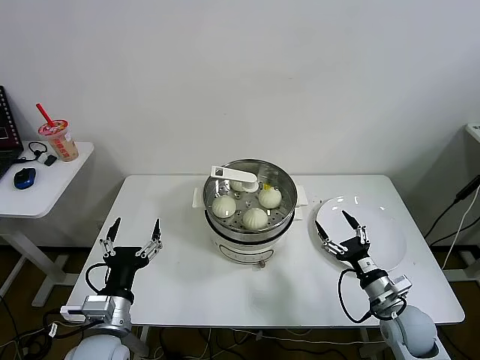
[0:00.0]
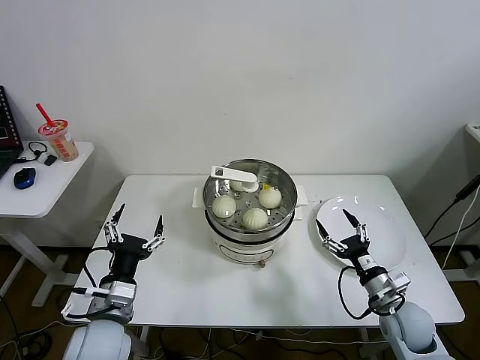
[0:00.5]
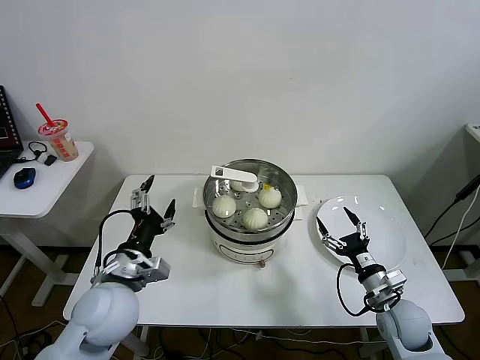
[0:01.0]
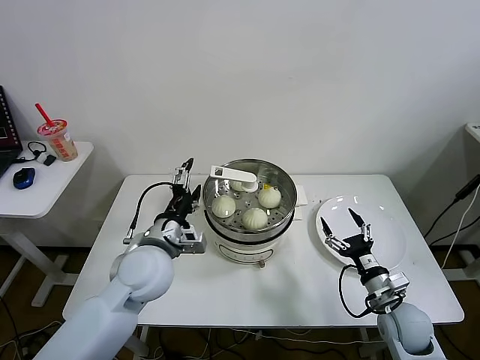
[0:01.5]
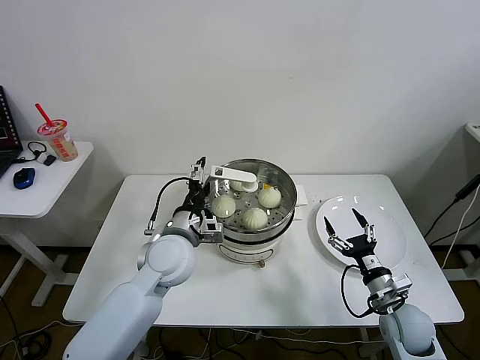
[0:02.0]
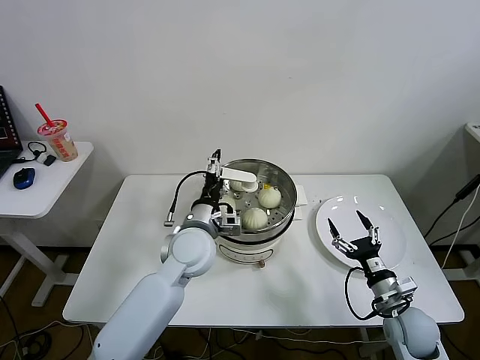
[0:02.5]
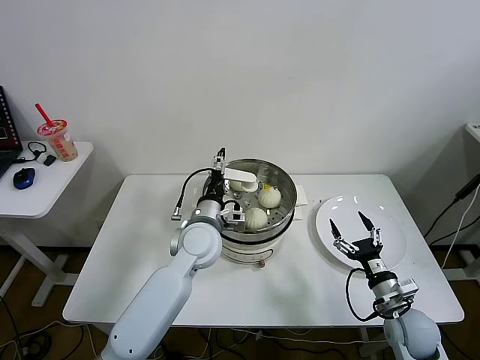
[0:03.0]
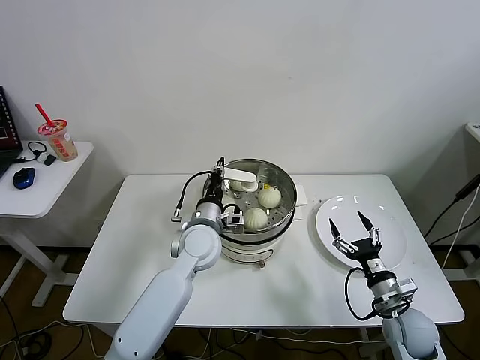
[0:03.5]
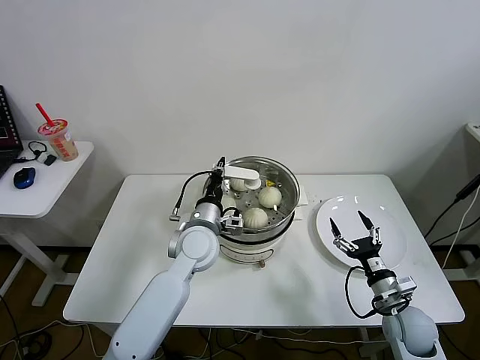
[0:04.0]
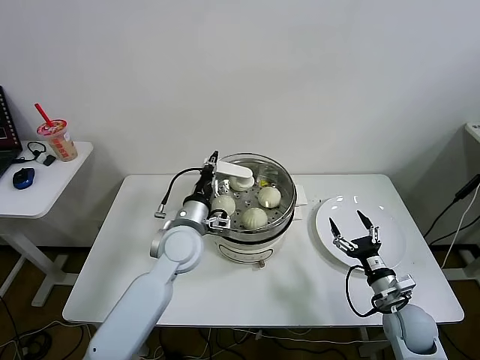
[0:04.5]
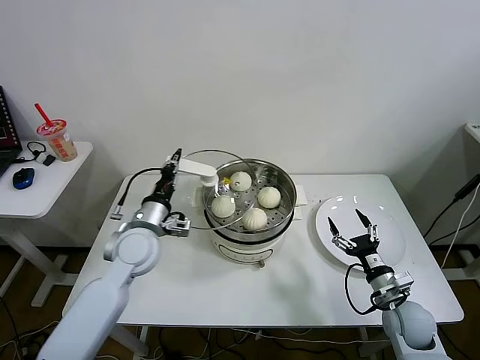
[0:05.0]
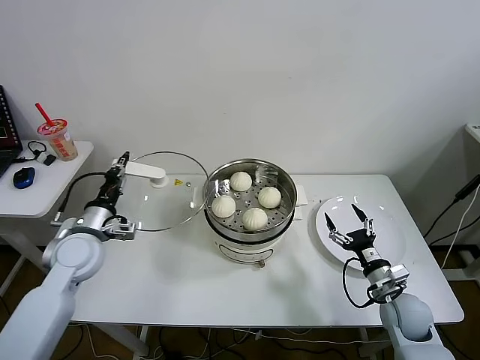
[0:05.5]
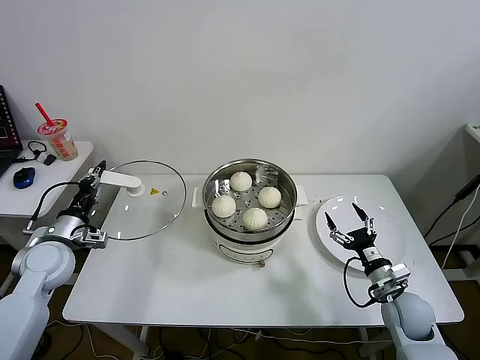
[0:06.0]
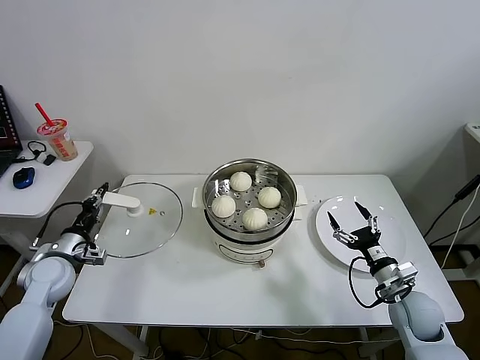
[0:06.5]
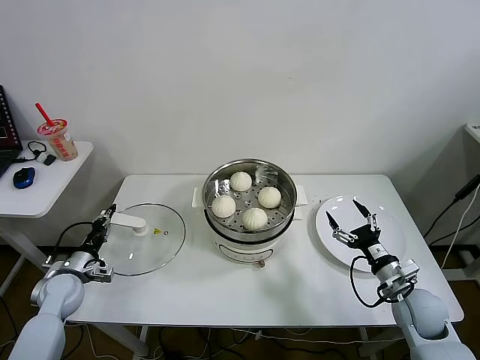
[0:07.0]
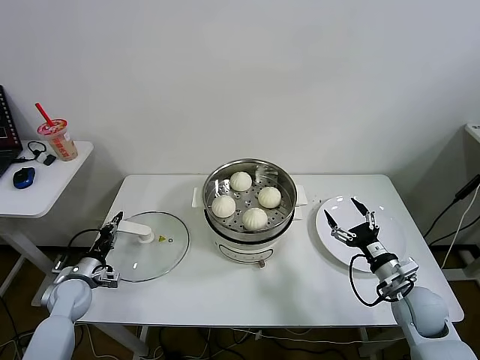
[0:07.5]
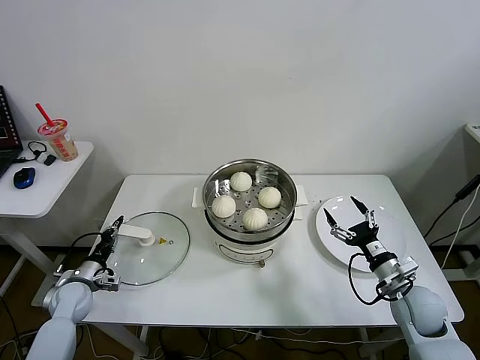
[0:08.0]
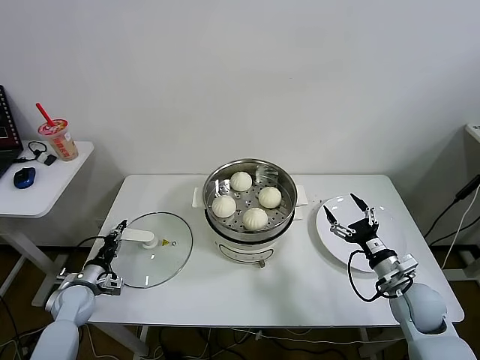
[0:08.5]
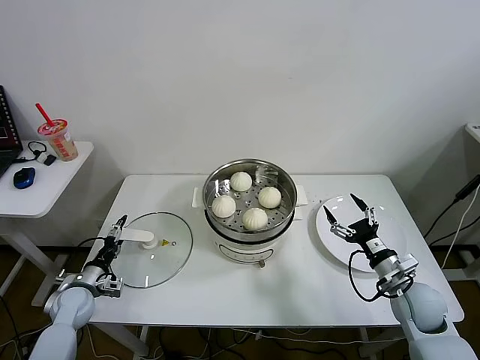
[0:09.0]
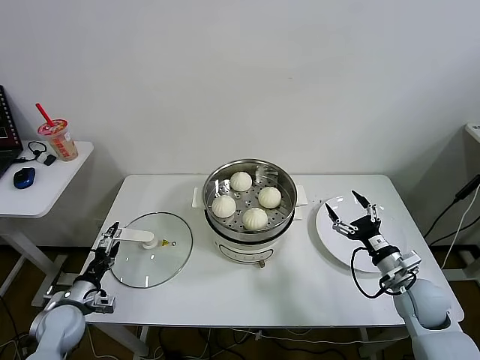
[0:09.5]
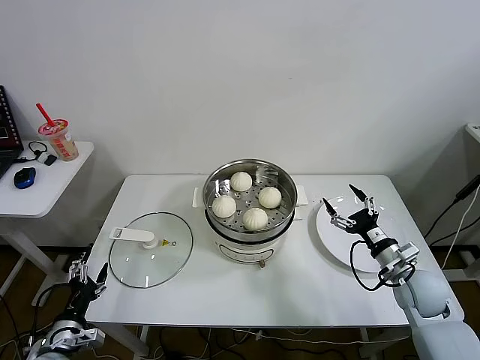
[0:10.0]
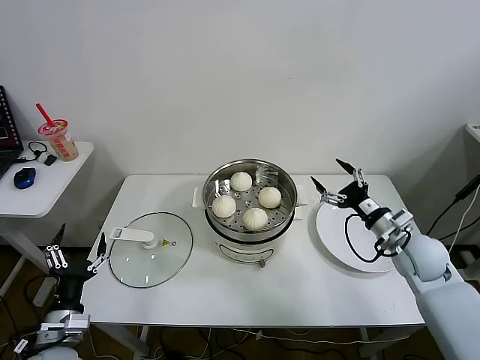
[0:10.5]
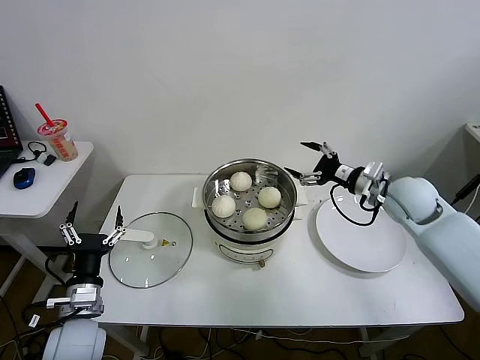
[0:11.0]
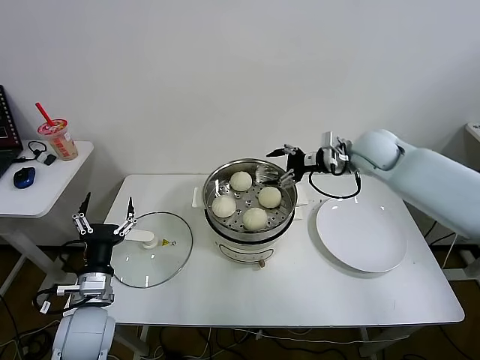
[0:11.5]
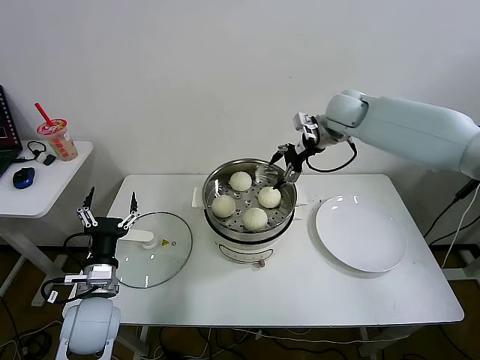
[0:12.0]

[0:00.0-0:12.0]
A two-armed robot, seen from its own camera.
Task of the whole recording: take steamed baozi put them in steamer then cover it.
Step, 0.0 to 4.0 s: Grasp the pot lid with left gripper.
Step, 4.5 to 8.5 s: Place the pot lid on the table with left gripper.
2.0 to 4.0 s: The left gripper ends up some 5 cm from where it was, and closes its fingers.
4.0 to 6.0 s: The left gripper goes roughly 30 cm to the left.
6.0 to 8.0 s: The left gripper heads downward, covering roughly 15 cm.
8.0 to 10.0 s: The left gripper moves backward, about 15 cm, and opens.
10.0 to 12.0 s: The left gripper shifts roughly 15 cm to the right, upward and forward; the right gripper heads forward, upward and to the left, covering about 40 cm.

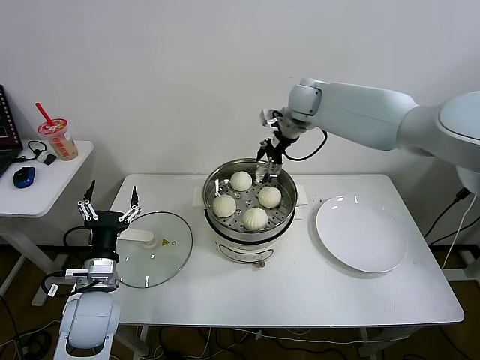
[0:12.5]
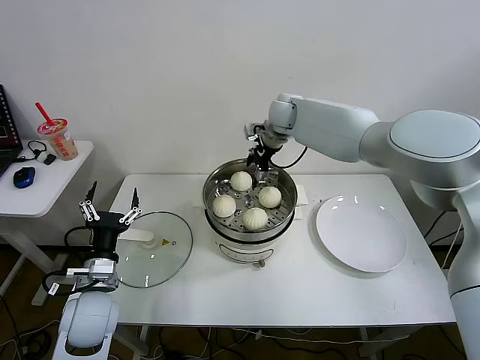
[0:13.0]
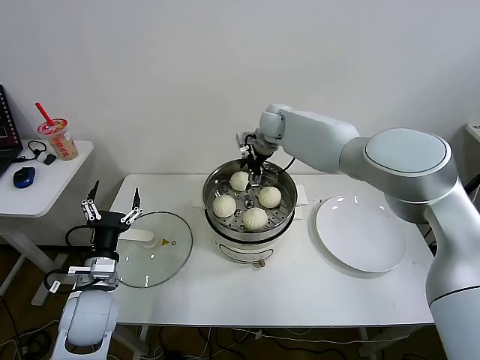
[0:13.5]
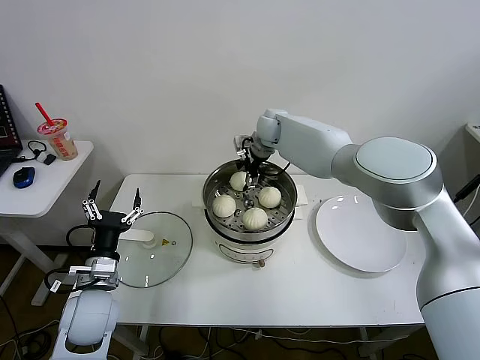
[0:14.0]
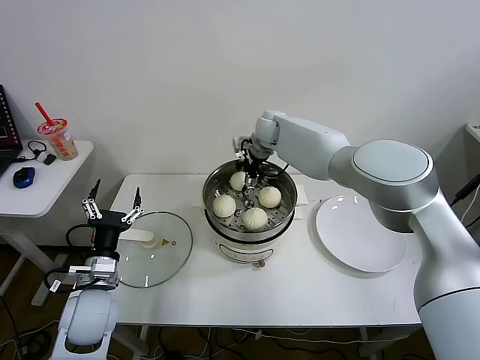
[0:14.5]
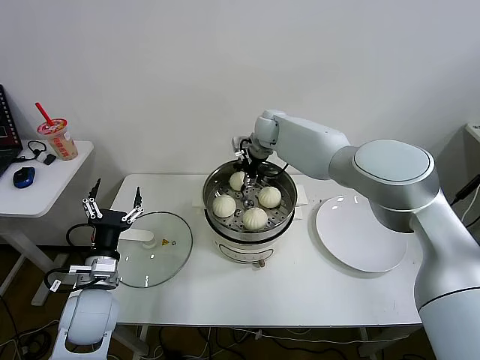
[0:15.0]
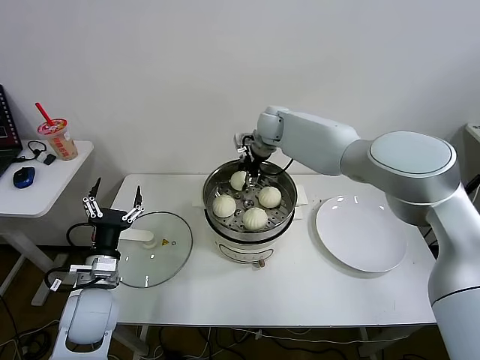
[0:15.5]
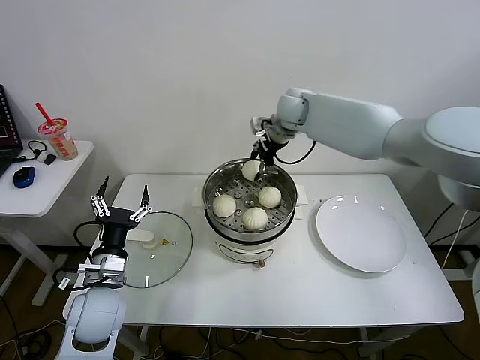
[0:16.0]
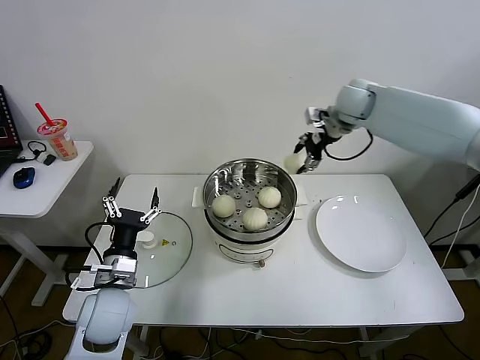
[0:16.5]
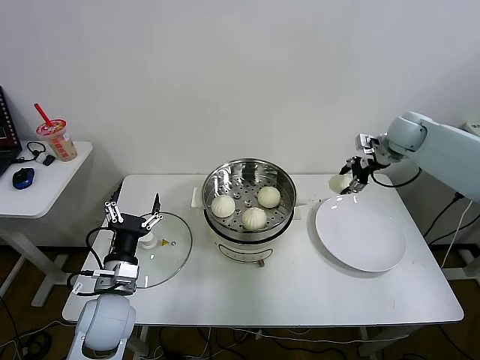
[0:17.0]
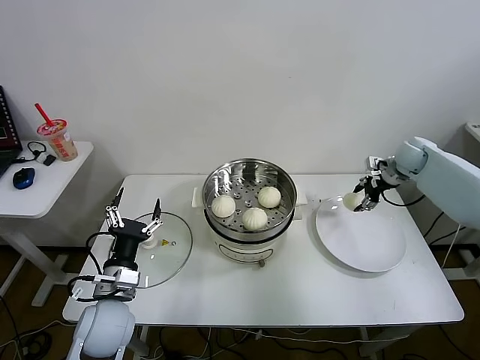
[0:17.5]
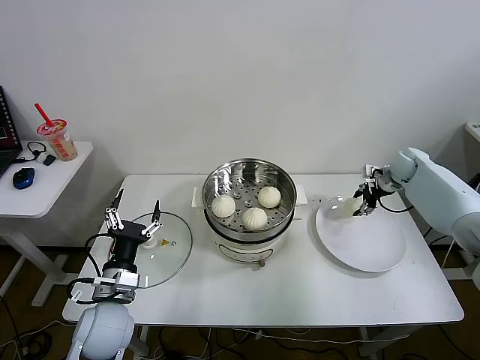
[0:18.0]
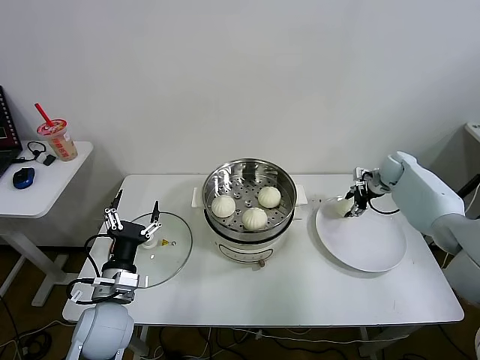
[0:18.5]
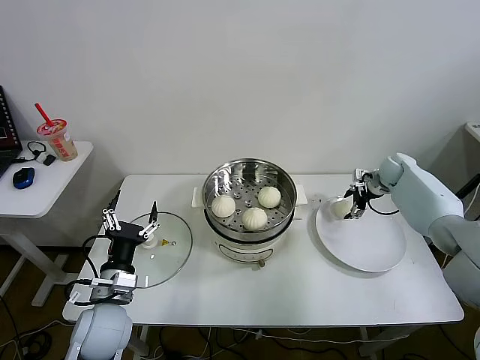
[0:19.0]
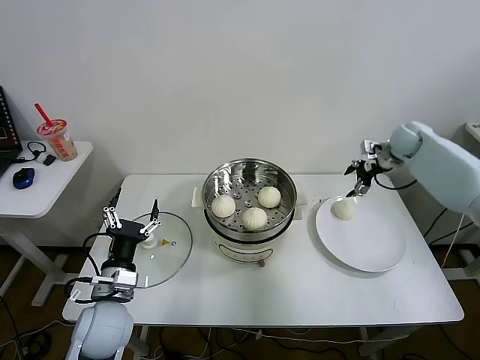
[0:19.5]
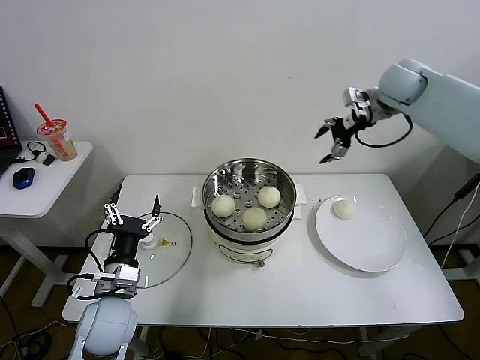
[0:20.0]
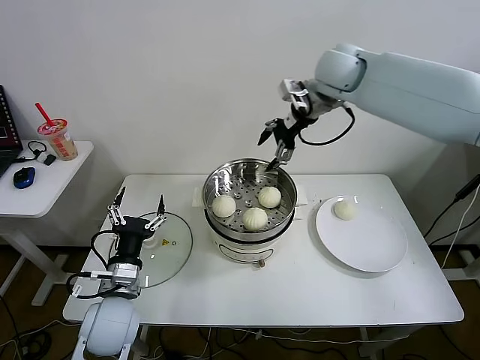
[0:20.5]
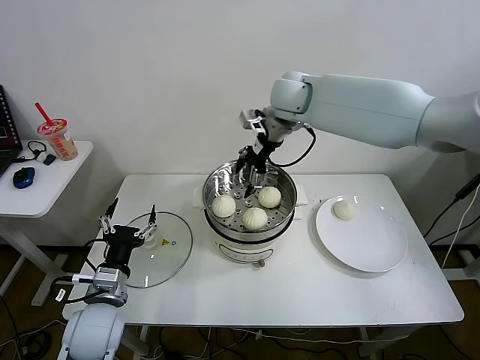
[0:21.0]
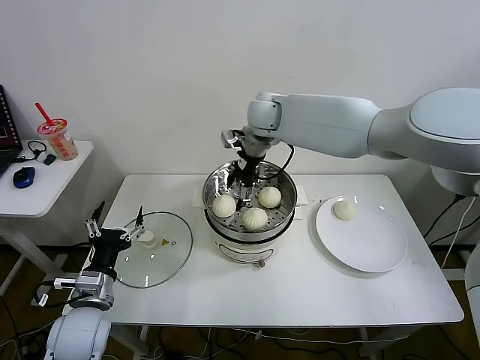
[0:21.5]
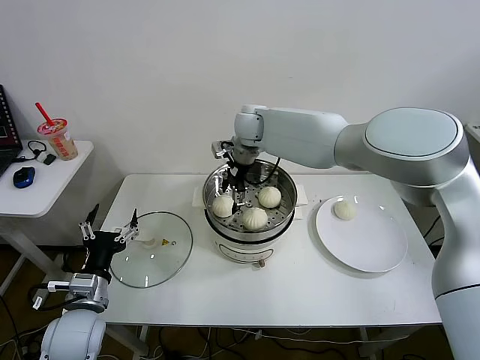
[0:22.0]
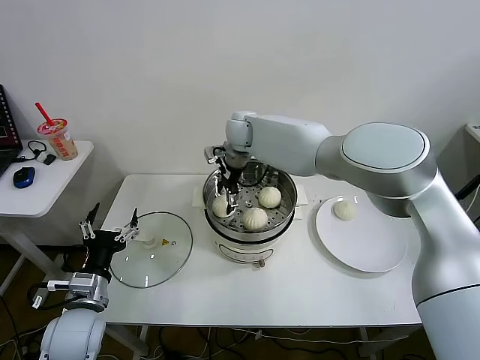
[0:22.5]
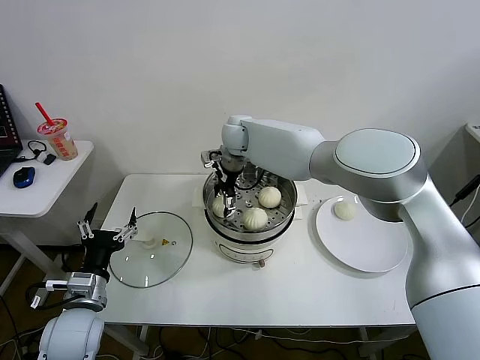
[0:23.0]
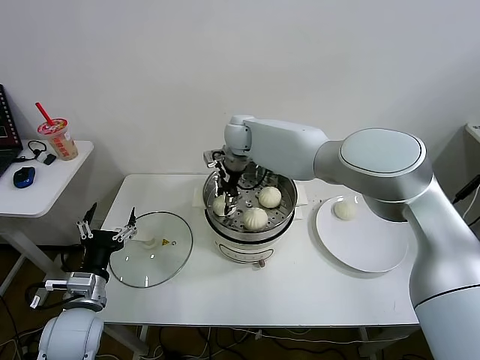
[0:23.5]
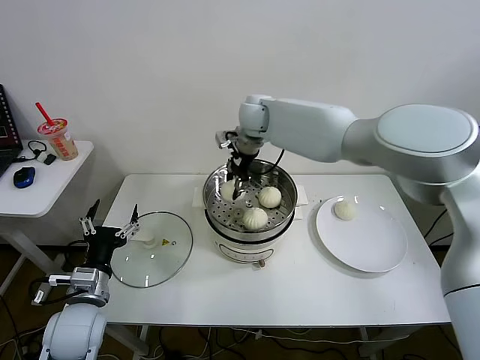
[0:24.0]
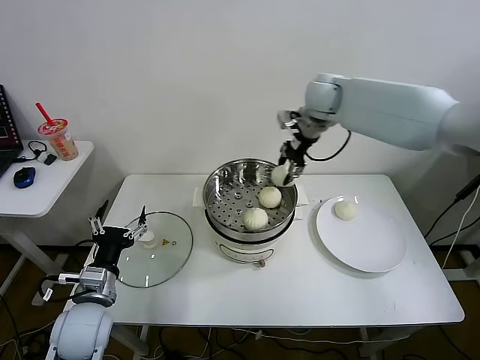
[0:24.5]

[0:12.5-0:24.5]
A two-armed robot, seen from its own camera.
Task of the whole recording: take steamed baozi put them in steamer then cover it.
Step, 12.5 to 14.5 s: Grasp the baozi with right gripper.
Step, 15.0 to 18.5 s: Place the baozi on the plate with right gripper.
Step, 19.0 to 23.0 s: Grasp the baozi with right gripper.
12.5 to 14.5 s: The right gripper moves downward and to the left, about 10 cm.
14.5 to 16.5 s: The right gripper goes approximately 20 cm to the right and upward, and closes up.
16.5 to 18.5 s: The right gripper travels downward and to the right by approximately 25 cm.
18.5 to 20.5 s: The right gripper goes about 40 cm upward and to the left, and opens up.
20.5 to 22.5 s: The left gripper moves to the left, about 5 cm. Meanwhile the right gripper goes about 25 cm to the left and downward.
22.5 to 24.5 s: The right gripper moves to the right and upward, some 20 cm, and closes.

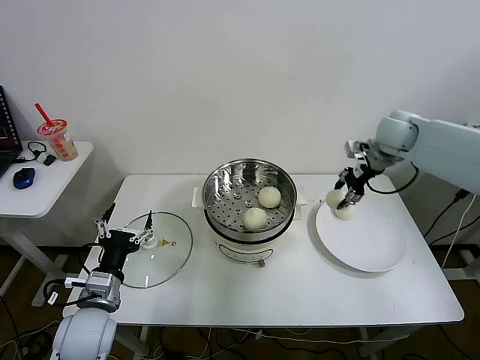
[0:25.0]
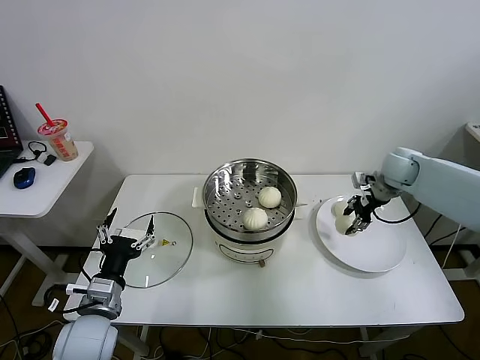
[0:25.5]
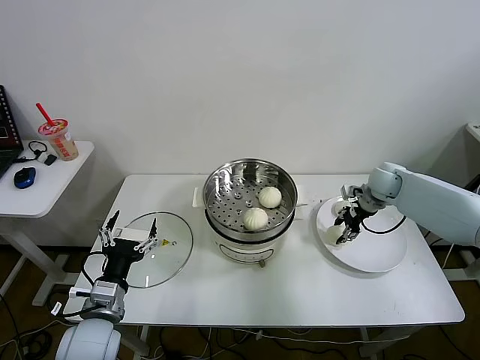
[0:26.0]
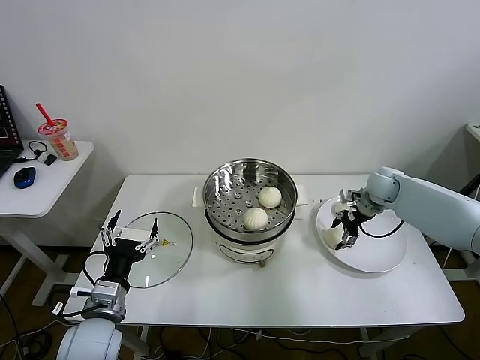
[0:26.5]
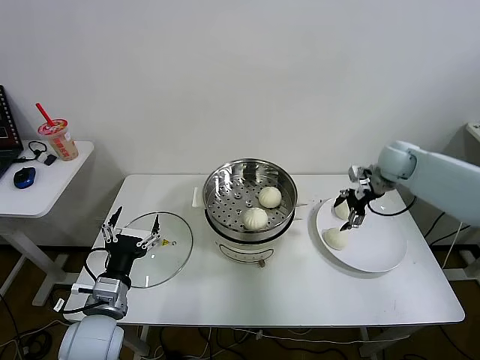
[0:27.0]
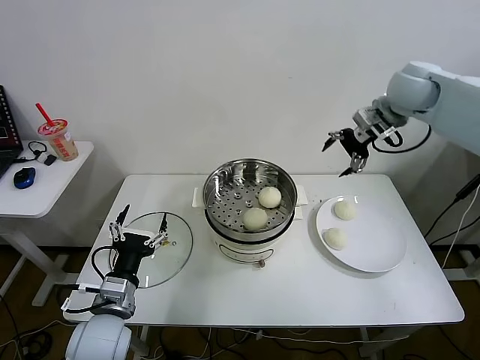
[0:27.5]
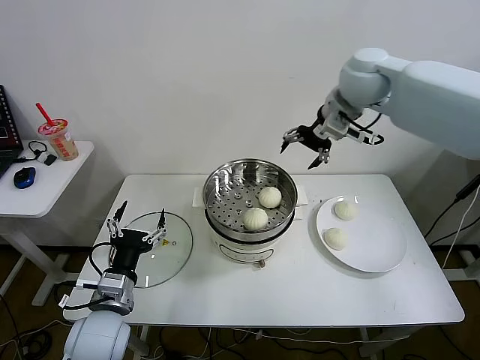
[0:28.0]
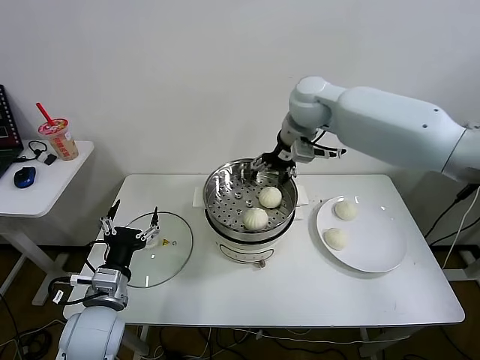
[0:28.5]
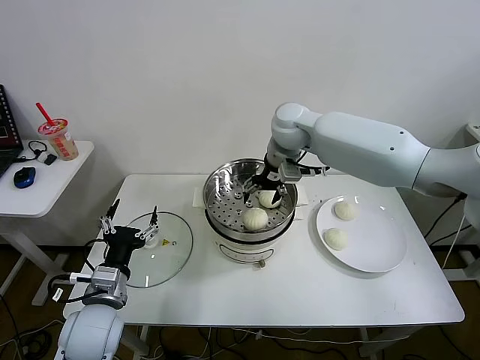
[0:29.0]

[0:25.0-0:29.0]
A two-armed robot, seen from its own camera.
Task of the whole recording: take steamed baozi put them in steamer then cover it.
Step, 25.0 to 26.5 s: Place the baozi on the plate with right gripper.
25.0 to 27.0 s: The right gripper goes some 5 cm downward, and opens its fingers.
27.0 to 29.0 s: The right gripper moves to the left, approximately 30 cm.
